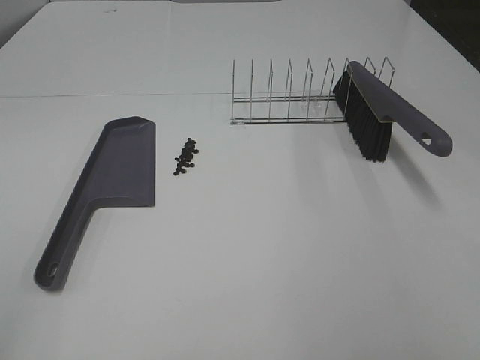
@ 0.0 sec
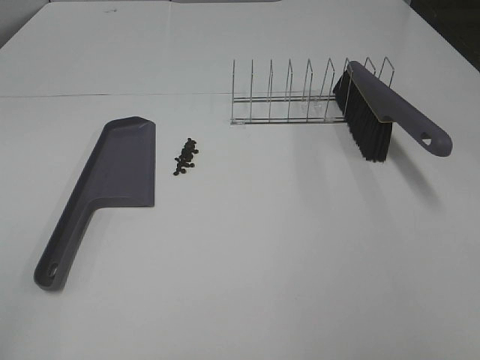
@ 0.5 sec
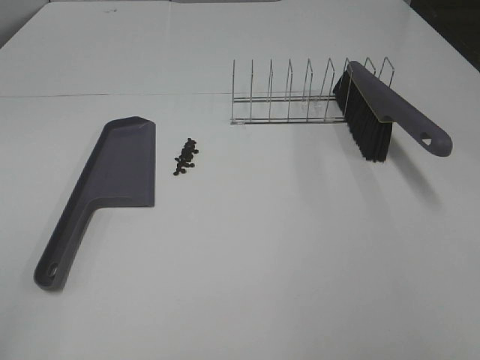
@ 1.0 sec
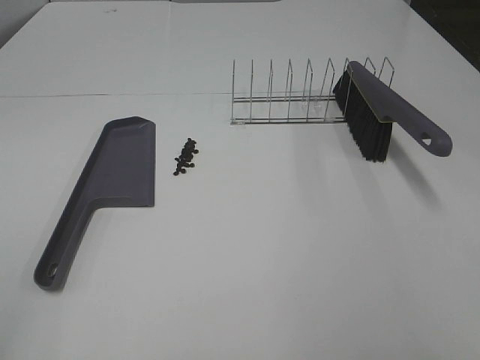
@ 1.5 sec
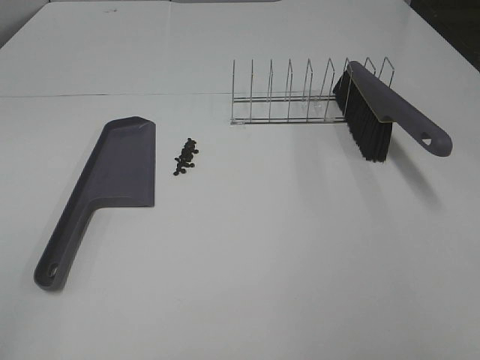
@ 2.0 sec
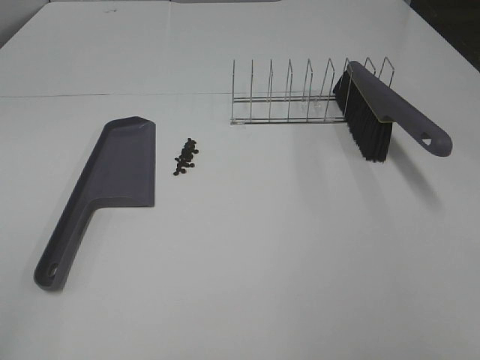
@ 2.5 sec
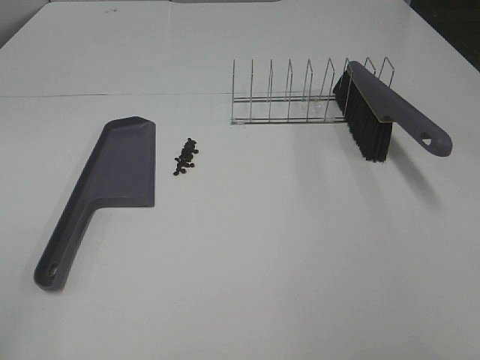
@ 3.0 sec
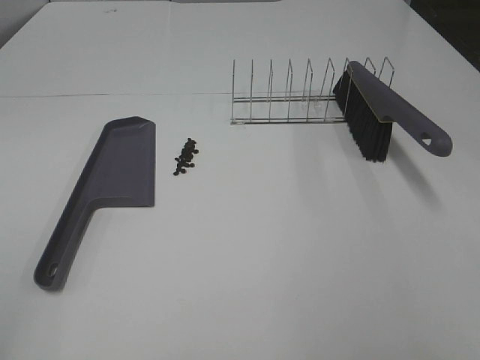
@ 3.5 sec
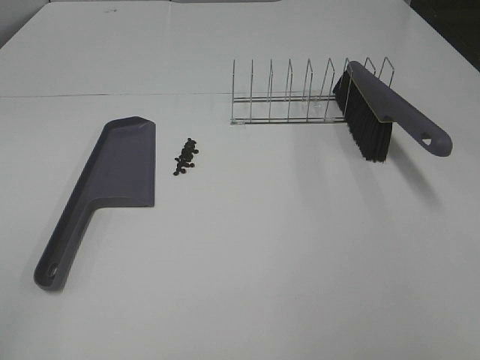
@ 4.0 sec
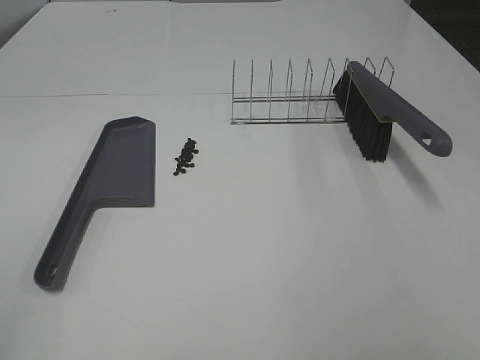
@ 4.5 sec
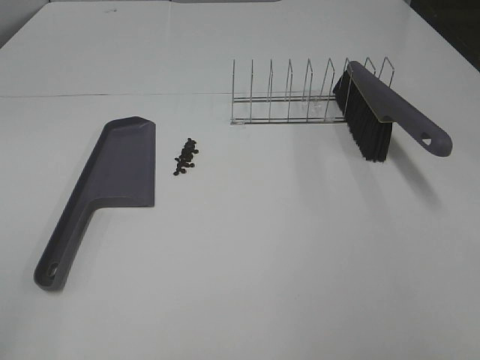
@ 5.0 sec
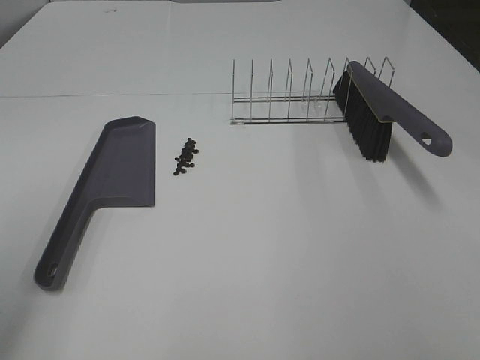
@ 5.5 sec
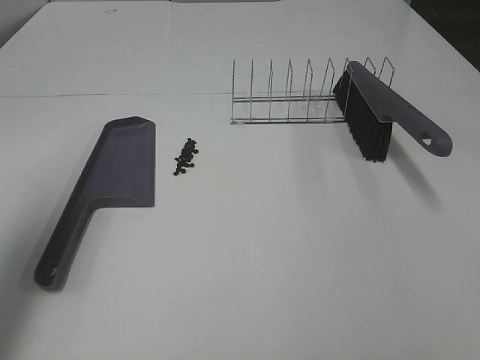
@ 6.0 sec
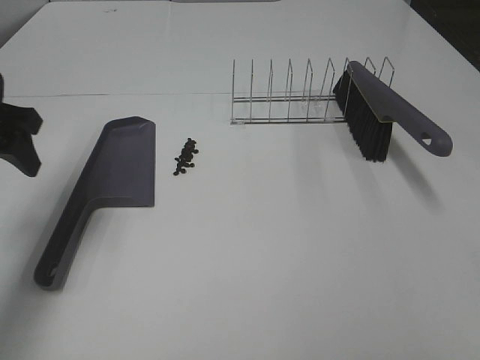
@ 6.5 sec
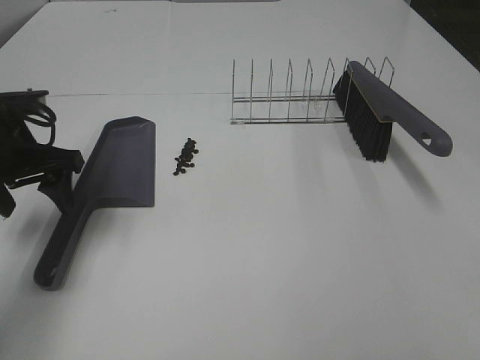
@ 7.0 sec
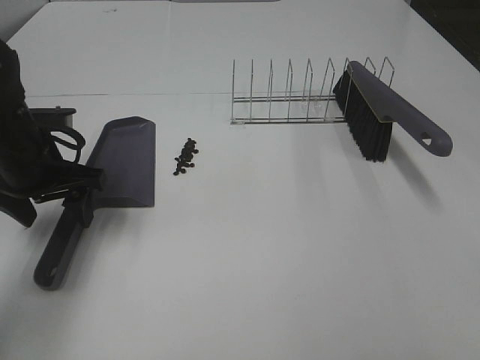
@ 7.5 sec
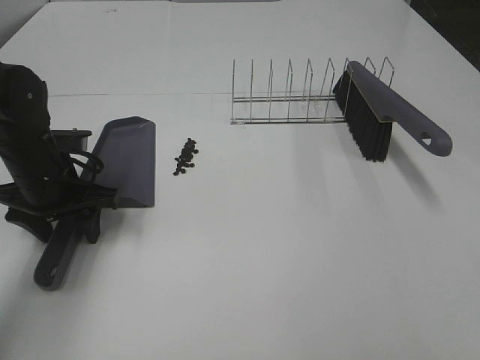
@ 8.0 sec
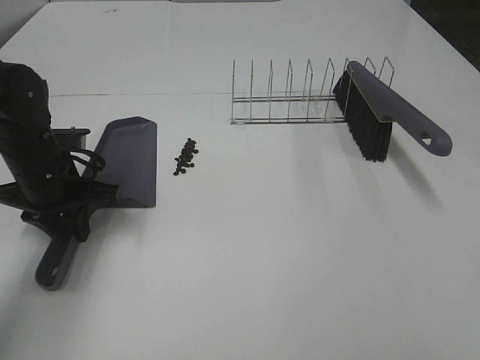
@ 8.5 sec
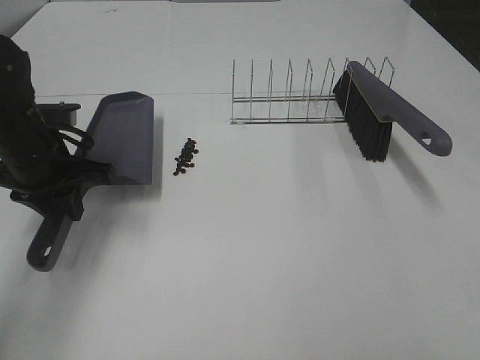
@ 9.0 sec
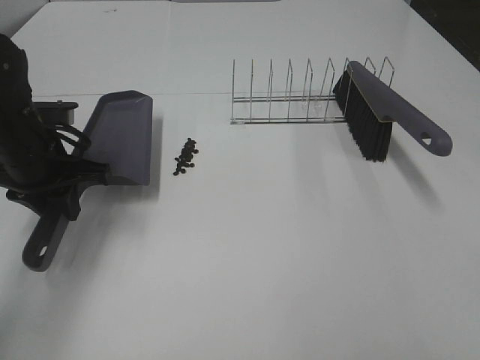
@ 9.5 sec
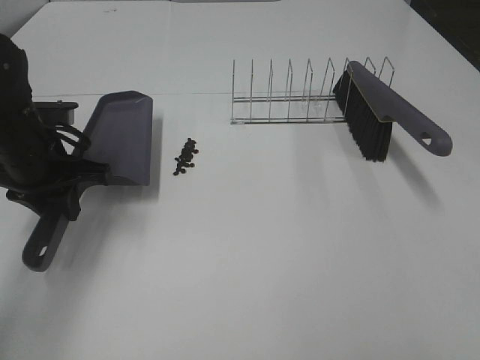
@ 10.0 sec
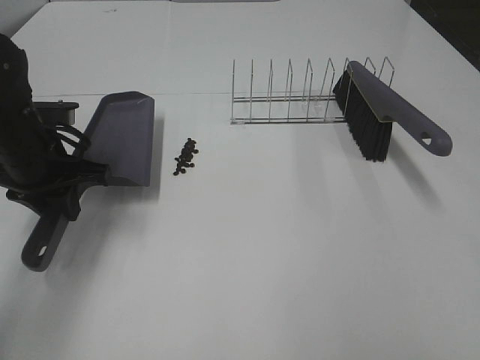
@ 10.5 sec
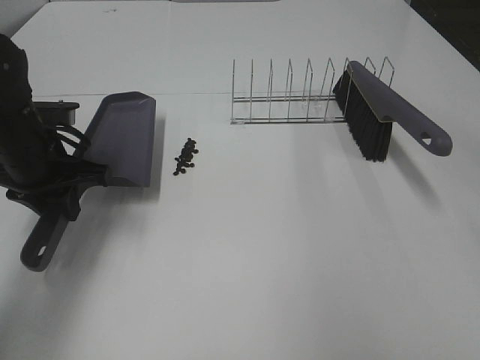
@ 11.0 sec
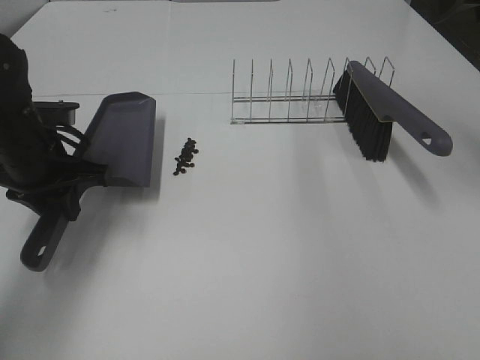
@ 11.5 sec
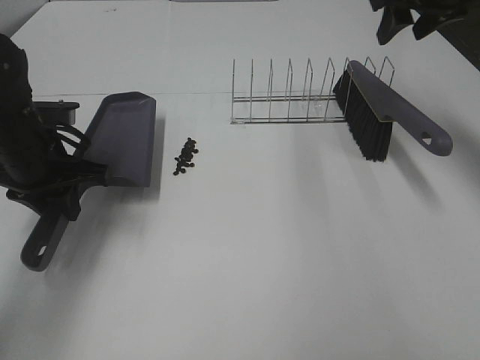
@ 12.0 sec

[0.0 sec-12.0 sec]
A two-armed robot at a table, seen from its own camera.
Task of the whole recording: Sweep Coffee Bean.
Step, 0.0 sec to 8.0 sec: Left hand: grab the dustpan.
0.0 sec to 4.0 sec: Both grippers stay about where they are.
4.0 sec to 6.0 sec: The left gripper heads forward, covering some 25 cm.
6.0 sec to 8.0 sec: The left gripper is displaced downward, forward and to the right by approximately 25 cm.
8.0 sec to 10.0 sec: The left gripper closes its fingers.
10.0 sec to 12.0 sec: The right gripper goes about 50 cm forward.

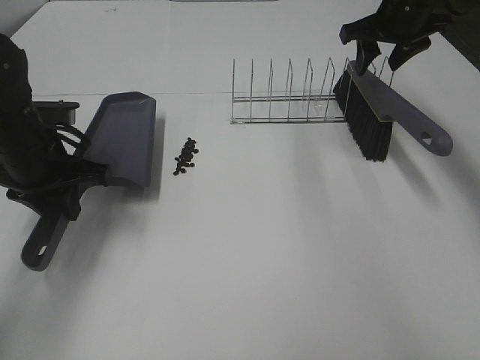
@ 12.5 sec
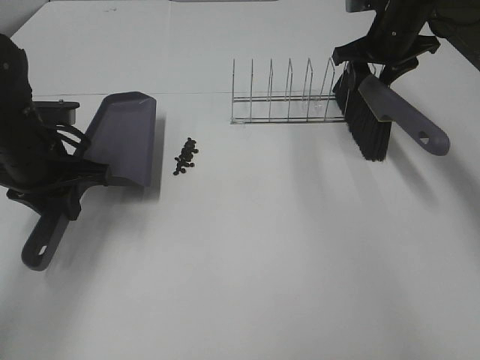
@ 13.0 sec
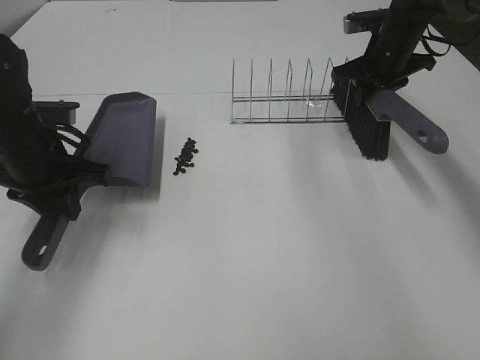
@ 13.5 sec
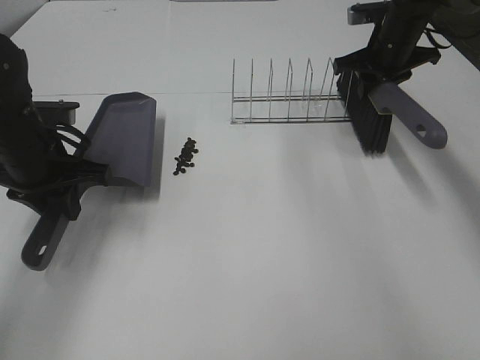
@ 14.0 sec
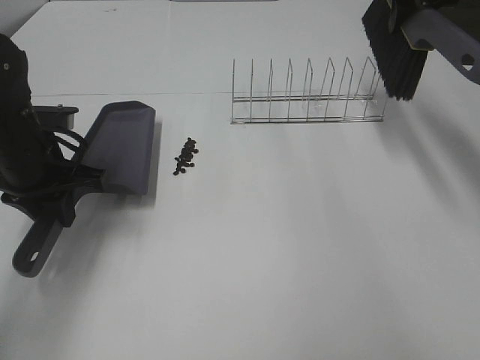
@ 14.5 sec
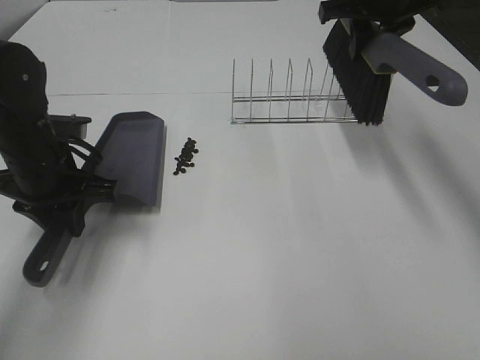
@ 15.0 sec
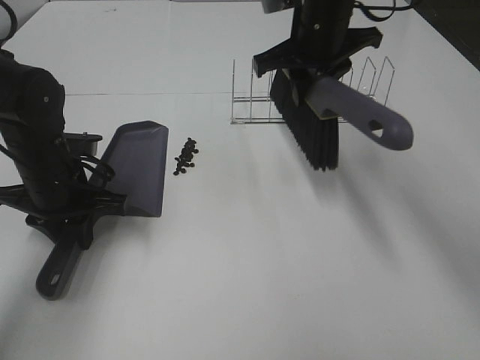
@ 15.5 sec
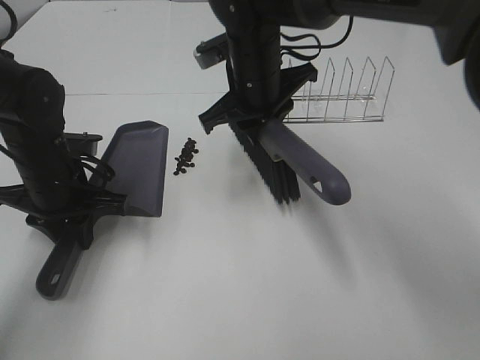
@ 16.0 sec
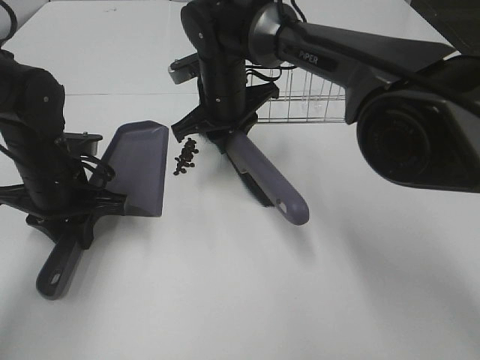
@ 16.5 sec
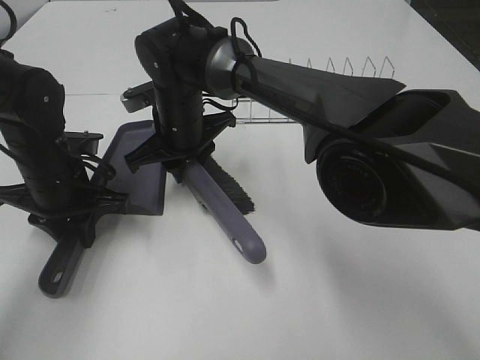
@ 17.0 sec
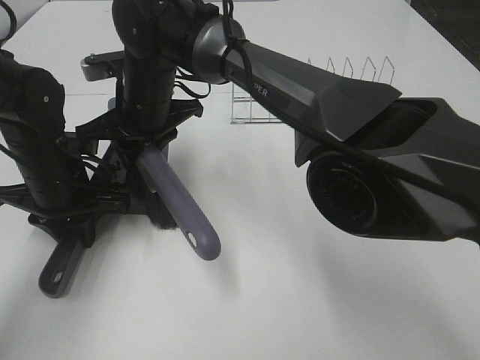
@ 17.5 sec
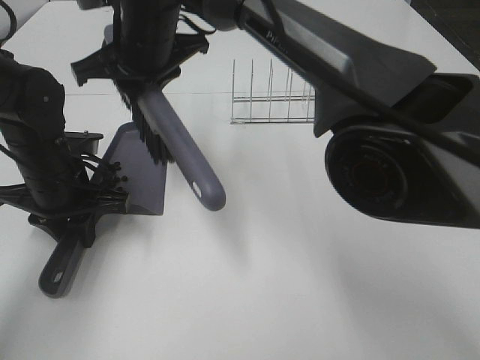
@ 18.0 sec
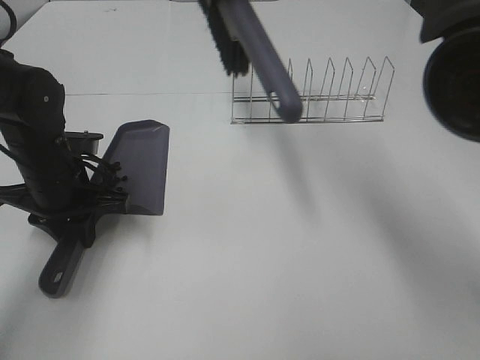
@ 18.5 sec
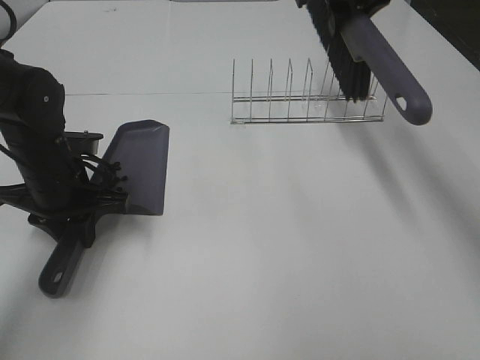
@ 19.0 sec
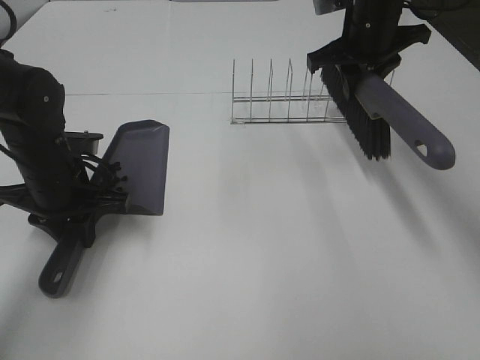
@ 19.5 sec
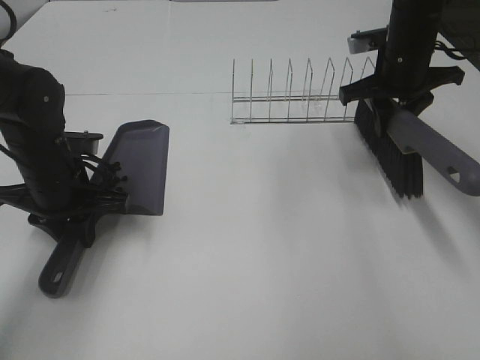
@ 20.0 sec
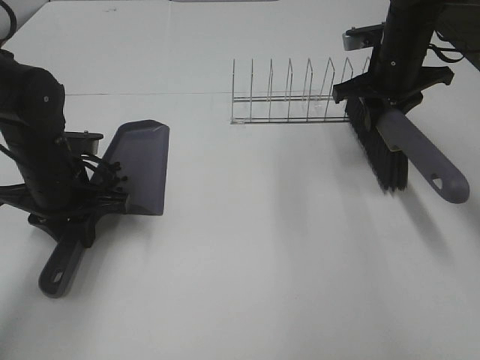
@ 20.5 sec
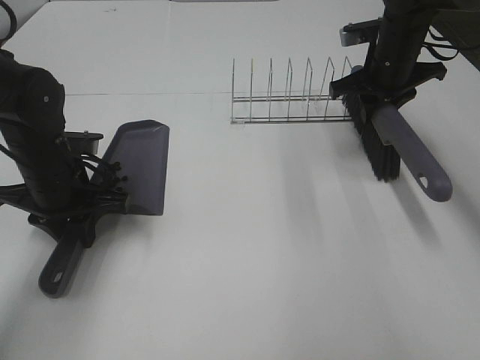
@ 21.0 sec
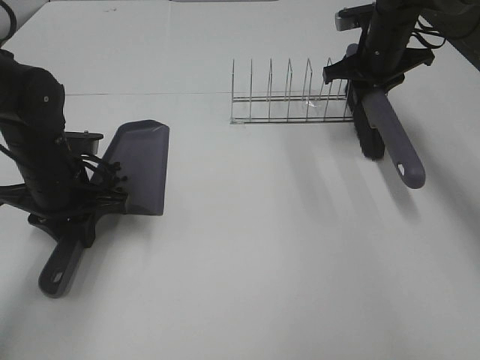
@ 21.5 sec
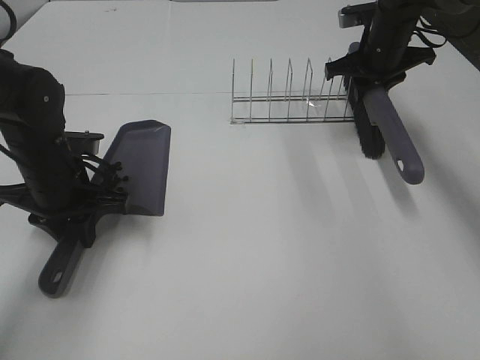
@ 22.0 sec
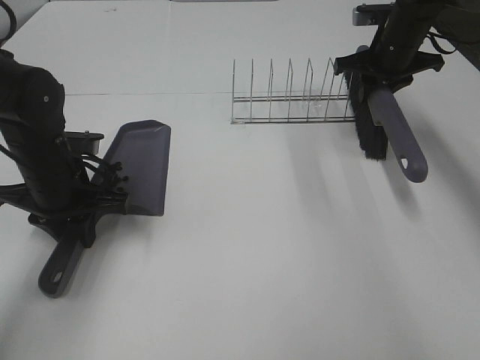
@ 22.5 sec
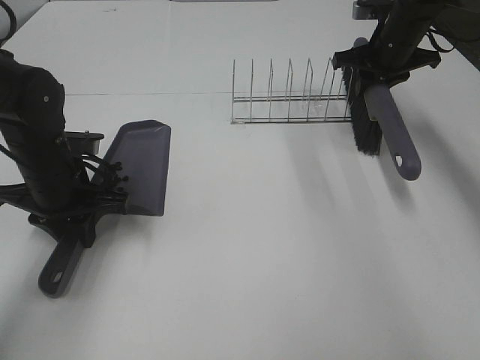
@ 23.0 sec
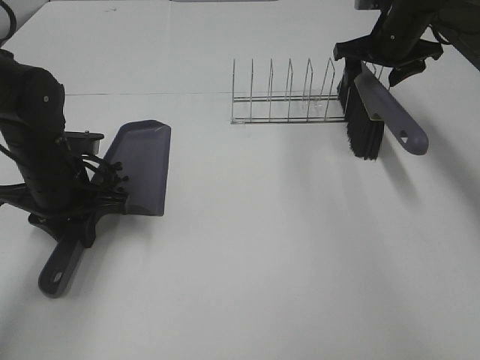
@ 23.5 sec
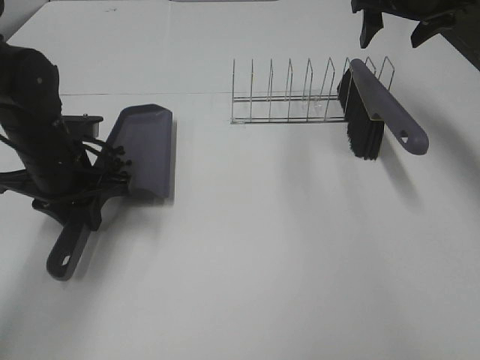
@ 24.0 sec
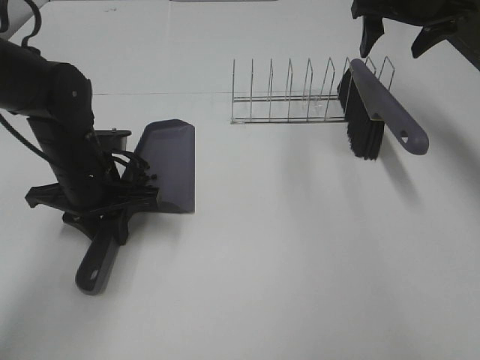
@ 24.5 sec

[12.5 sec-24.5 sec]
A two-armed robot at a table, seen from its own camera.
Task of the whole recording: Sweep Coffee Bean.
Step, 14.0 sec to 17.5 sec: Right hand:sweep the coffee beans into the dustpan.
Step, 18.0 sec to 23.0 sec: Right hand:place the broom on the rack.
12.5 sec to 14.5 sec: The right gripper heads upward, covering some 5 cm, and closes its fingers.
14.5 sec to 16.5 sec: The right gripper goes roughly 30 cm to the left and downward.
16.5 sec to 18.5 sec: The right gripper moves upward, some 20 cm.
18.5 sec to 20.5 sec: The right gripper travels to the right and downward by roughly 25 cm.
20.5 sec to 22.5 sec: The right gripper heads forward, covering approximately 5 cm.
22.5 sec to 24.5 sec: The right gripper shifts about 10 cm upward, and opens.

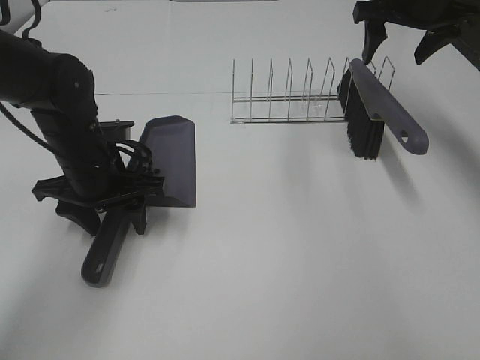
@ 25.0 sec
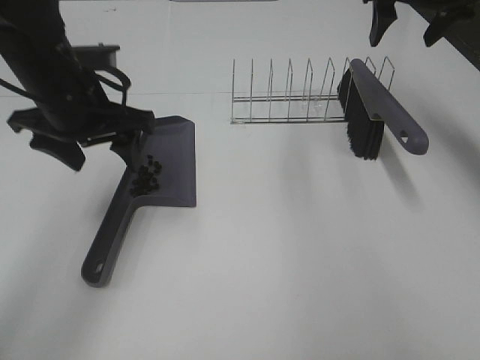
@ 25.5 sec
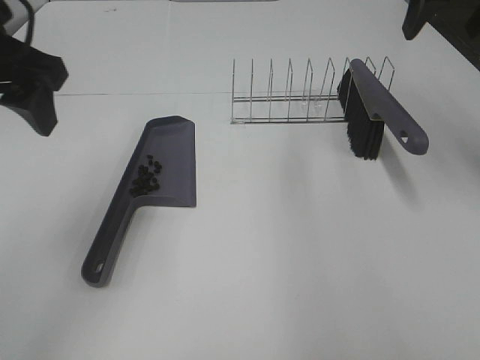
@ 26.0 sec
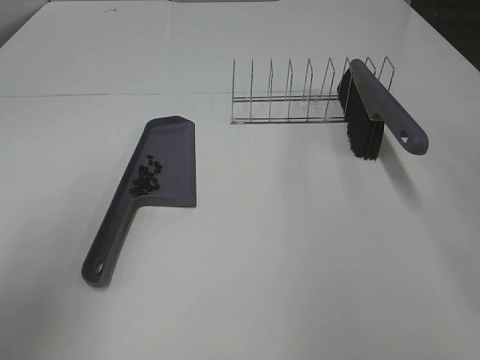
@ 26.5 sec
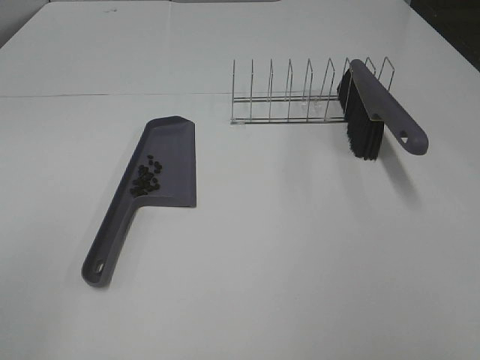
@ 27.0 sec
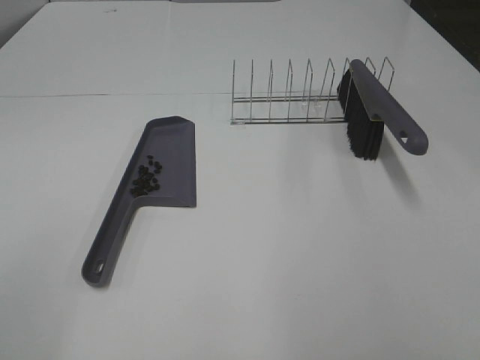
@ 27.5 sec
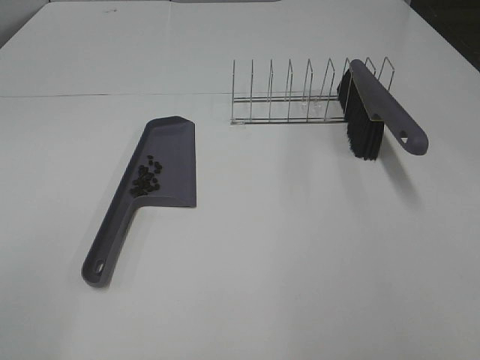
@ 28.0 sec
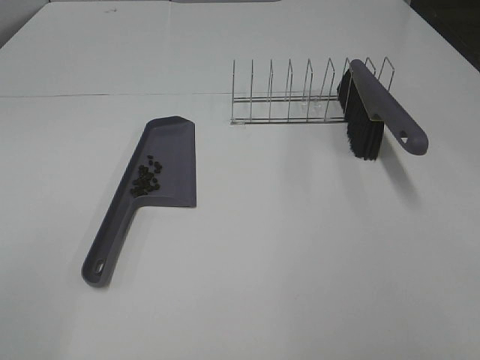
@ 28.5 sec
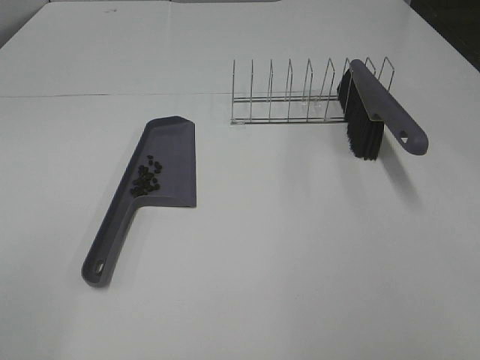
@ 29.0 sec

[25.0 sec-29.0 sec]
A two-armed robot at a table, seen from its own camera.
Task of the whole recording: Sweep Coffee Bean.
25.0 sec to 27.0 sec: The left gripper travels backward, upward and to the left by roughly 40 cm. The right gripper is displaced backward by about 40 cm.
